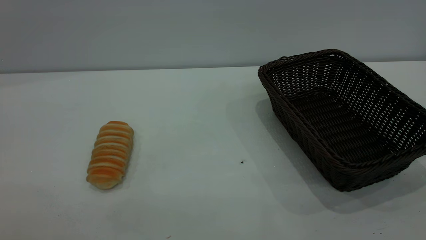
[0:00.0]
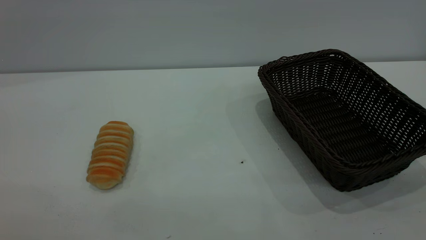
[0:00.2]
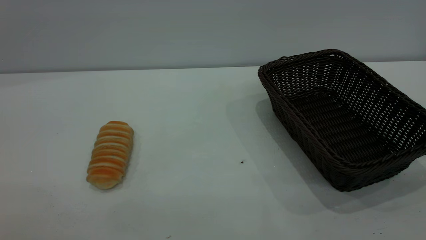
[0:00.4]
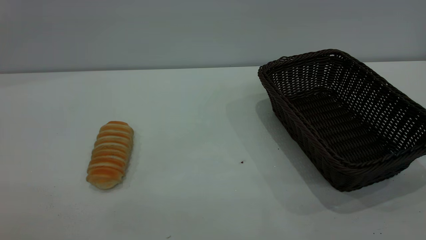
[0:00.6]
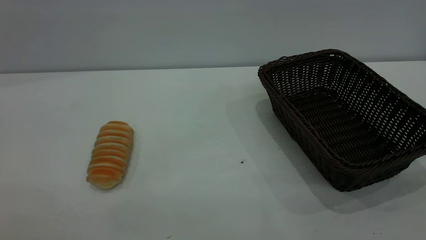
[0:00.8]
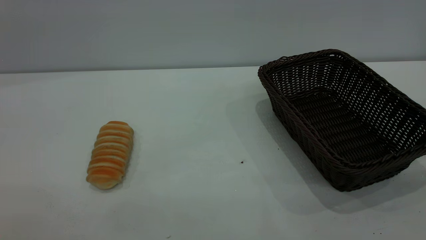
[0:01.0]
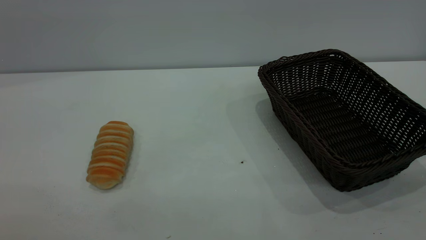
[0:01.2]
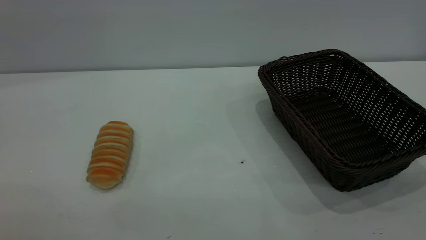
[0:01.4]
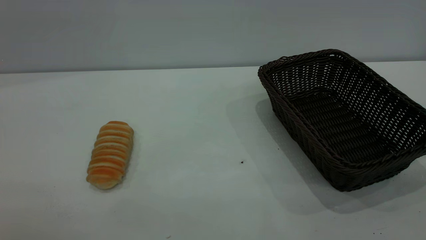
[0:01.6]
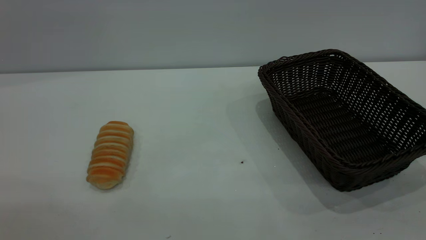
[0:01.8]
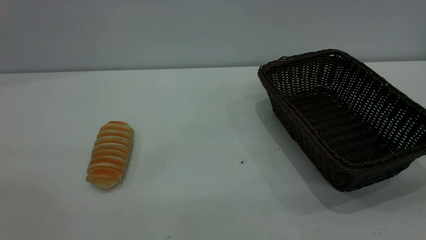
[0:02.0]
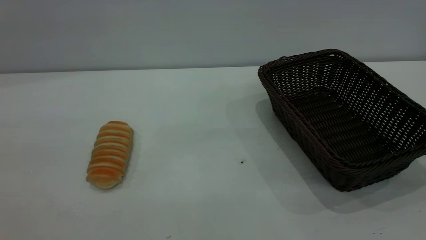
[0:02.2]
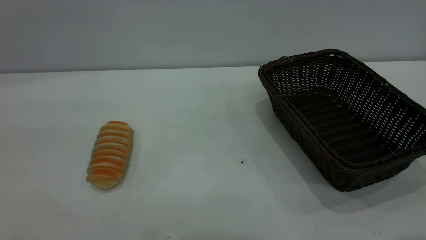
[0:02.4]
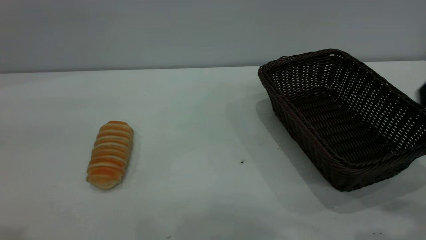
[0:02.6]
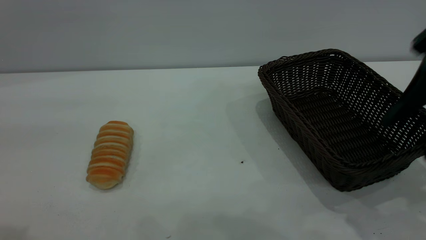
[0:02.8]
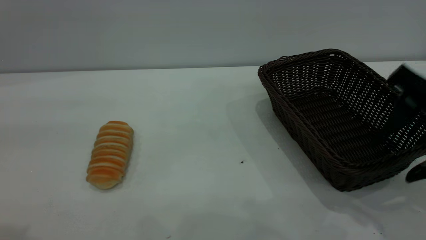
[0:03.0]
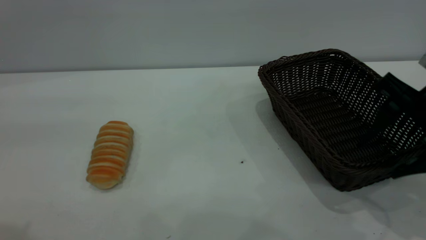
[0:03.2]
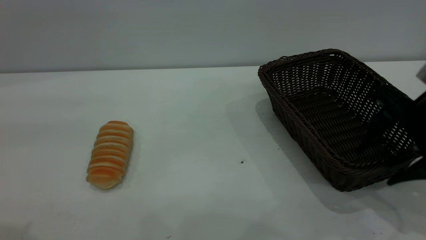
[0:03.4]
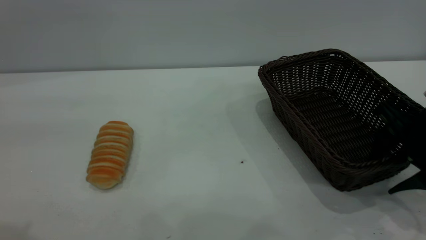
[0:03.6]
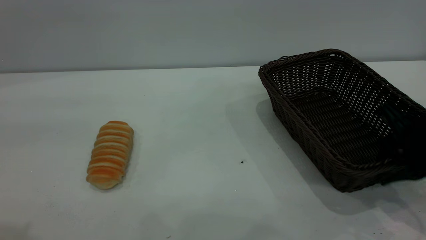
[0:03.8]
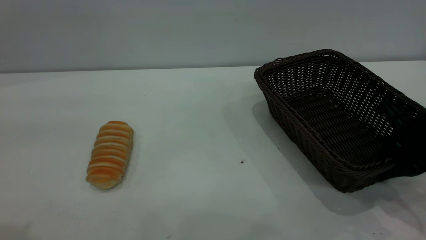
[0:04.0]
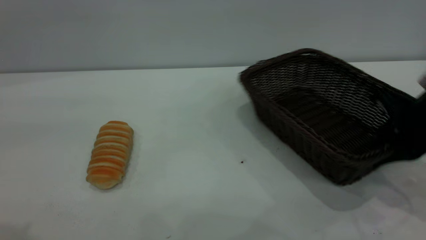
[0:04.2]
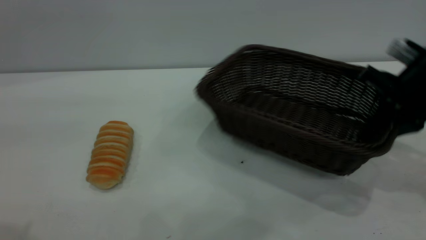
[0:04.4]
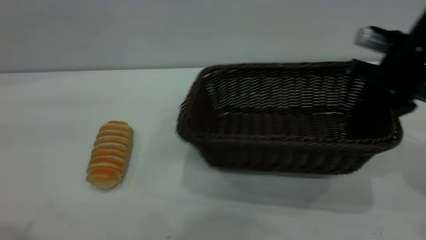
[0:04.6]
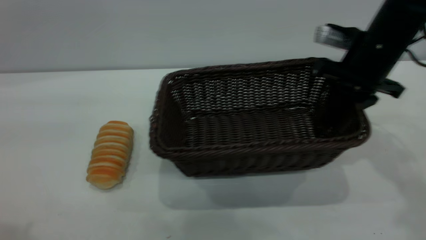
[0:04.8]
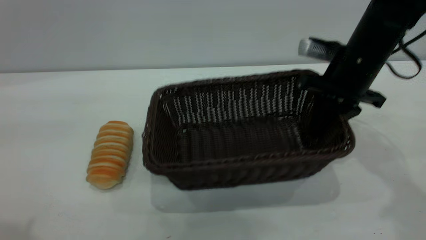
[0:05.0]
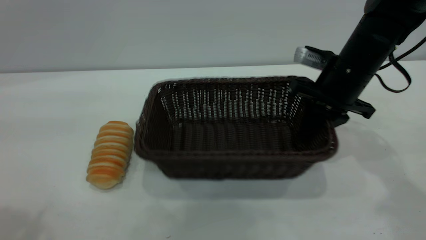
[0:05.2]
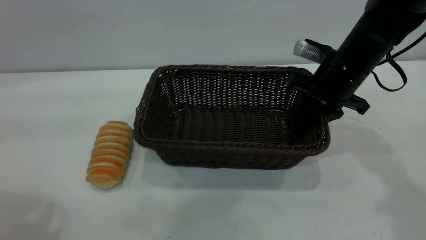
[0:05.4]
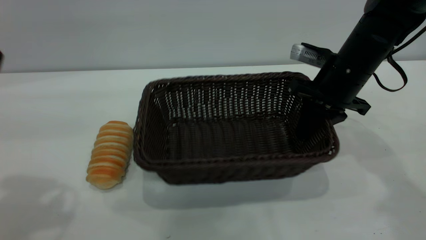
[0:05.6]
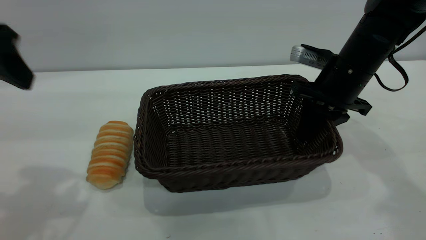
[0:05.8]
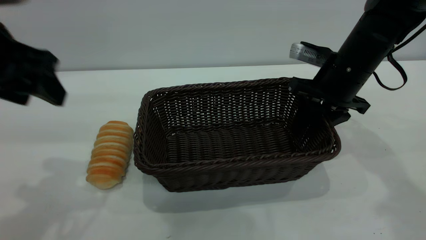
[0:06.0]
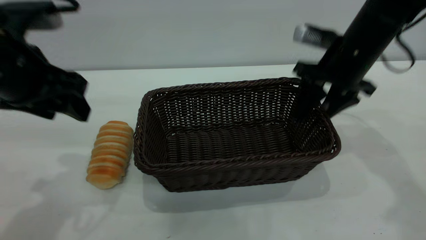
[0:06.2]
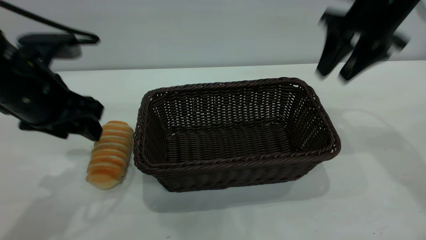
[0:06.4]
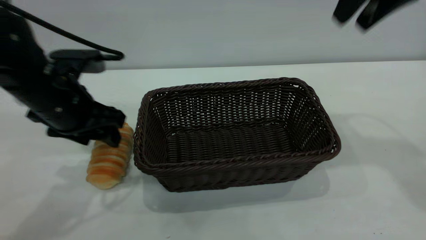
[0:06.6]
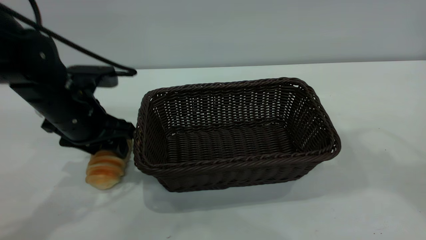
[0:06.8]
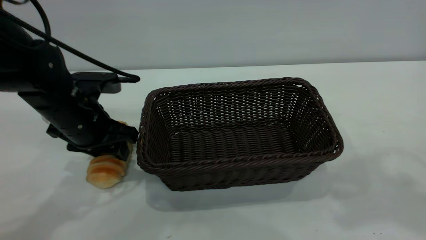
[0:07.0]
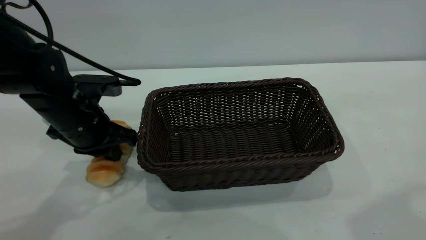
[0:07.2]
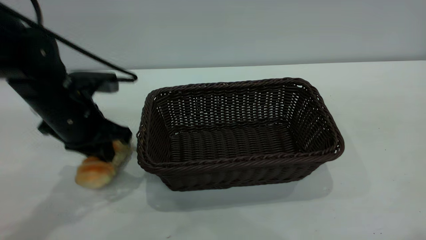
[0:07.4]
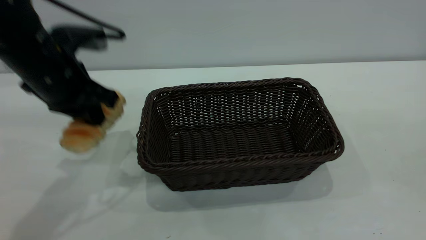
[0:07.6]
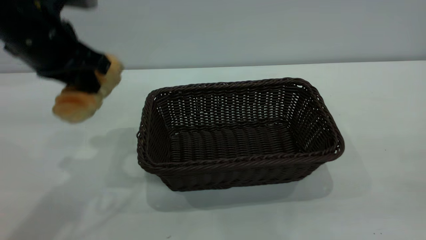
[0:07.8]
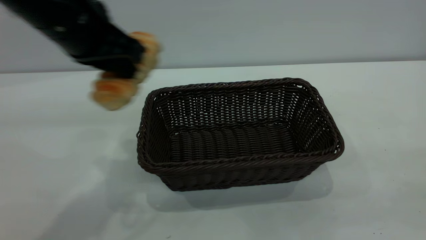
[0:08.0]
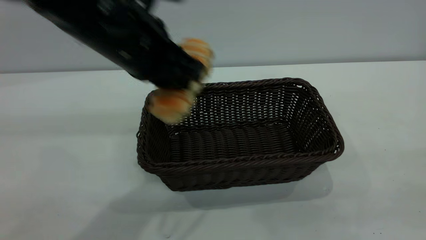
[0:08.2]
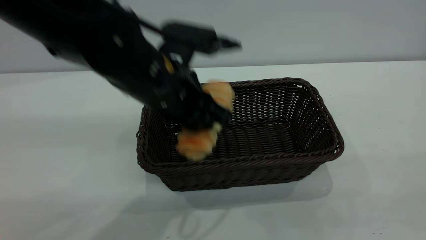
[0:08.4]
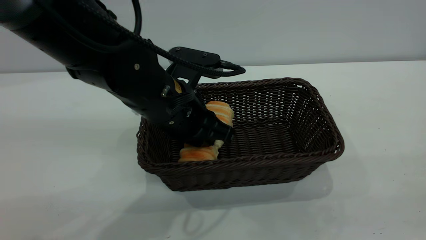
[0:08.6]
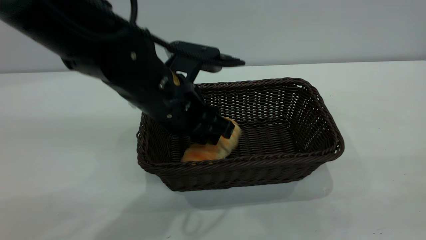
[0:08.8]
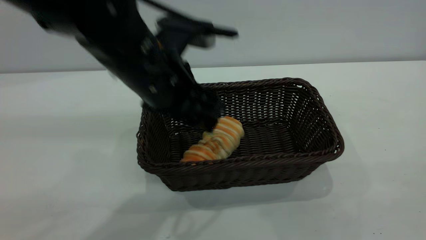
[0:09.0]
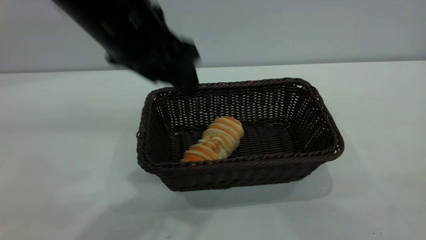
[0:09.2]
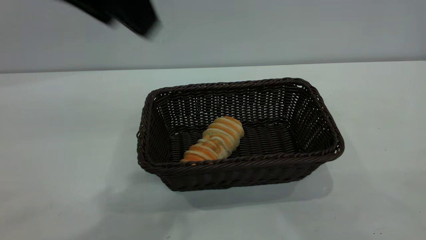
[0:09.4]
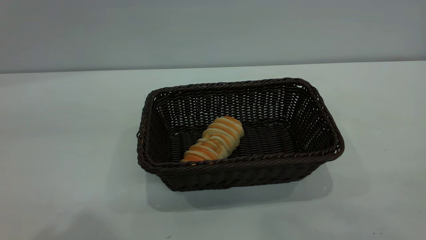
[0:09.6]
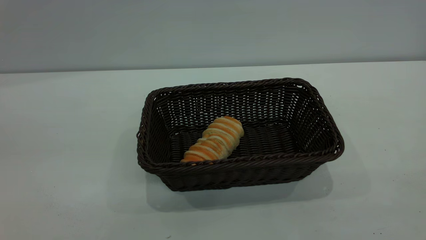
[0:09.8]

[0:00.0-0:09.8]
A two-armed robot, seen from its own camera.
Task of the whole recording: One hand grasps the black basket and places it in the middle of the table, while the other hand picks up the long bread and puts it into the black basket.
Step, 0:00.0 to 0:06.2: Move the basket to the center of view.
Step, 0:08.0 to 0:09.2: place the bread into the basket.
0:00.0 to 0:01.4: Neither gripper changes place.
0:01.4 to 0:02.8: The right gripper goes about 25 cm forward, and opens.
0:02.8 to 0:04.2: The right gripper shifts approximately 15 cm downward and forward, and closes.
0:04.2 to 0:05.6: The right gripper goes some 15 cm forward and to the left, while the left gripper goes approximately 10 cm forward and downward.
0:05.6 to 0:07.0: The left gripper moves downward and forward, about 25 cm, and closes its fingers; the right gripper goes roughly 35 cm upward and backward, and opens up.
0:07.0 to 0:08.4: The left gripper is displaced to the right and upward by about 15 cm, and closes up, while the right gripper moves backward and downward, about 25 cm.
0:08.4 to 0:09.8: The left gripper moves upward, backward and to the left, some 40 cm, and opens its fingers.
